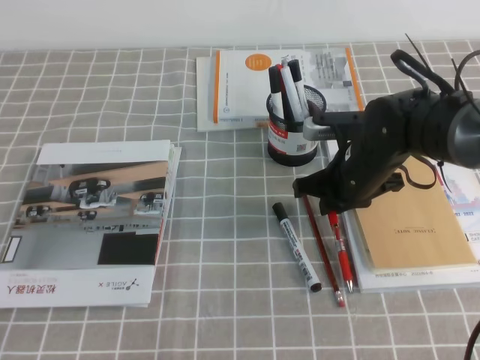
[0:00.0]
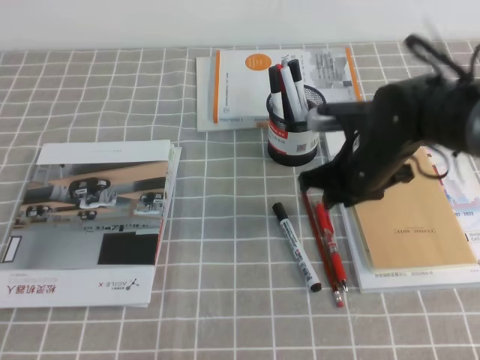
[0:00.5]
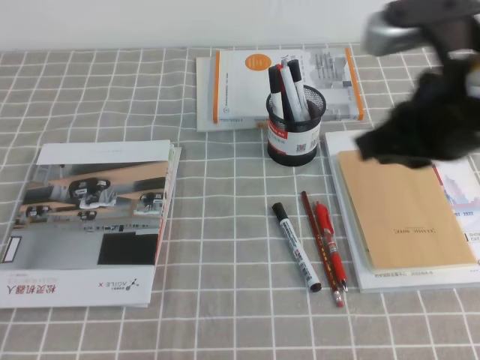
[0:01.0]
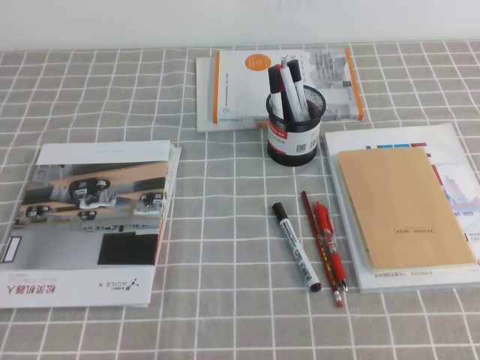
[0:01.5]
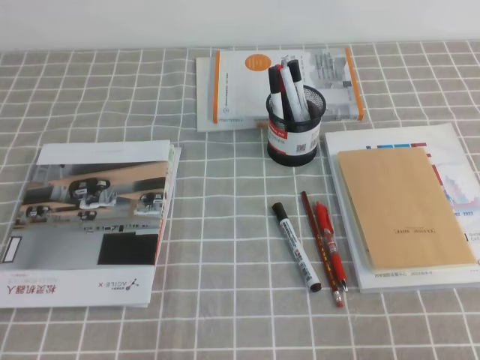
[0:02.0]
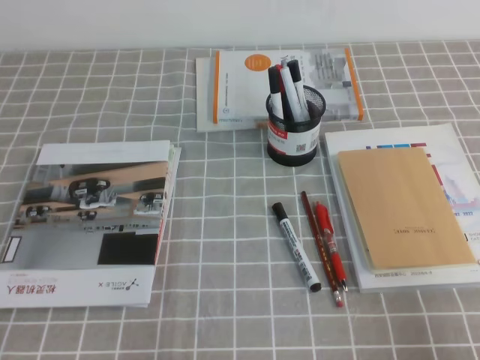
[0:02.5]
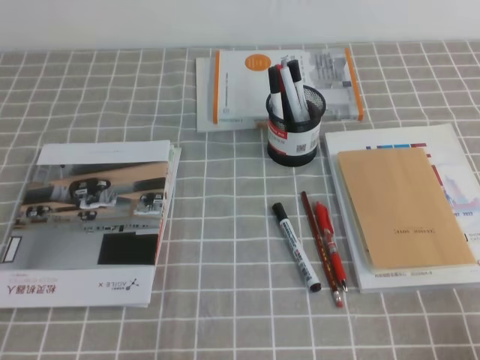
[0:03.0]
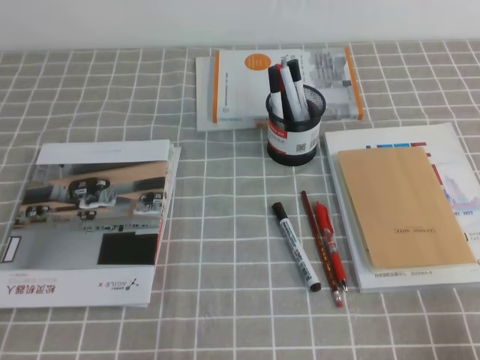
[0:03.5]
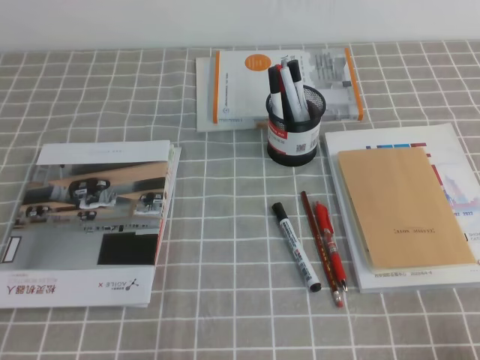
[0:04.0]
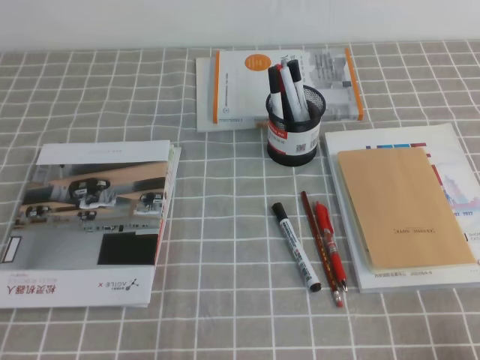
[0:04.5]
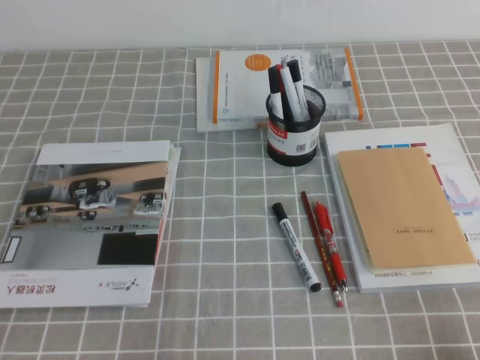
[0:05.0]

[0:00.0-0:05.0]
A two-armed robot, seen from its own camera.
Step, 0:00.0 to 0:05.0: Pick up the pen from the pen holder.
0:00.0 to 0:02.5: The right gripper shifts some 35 cm backward and to the right.
